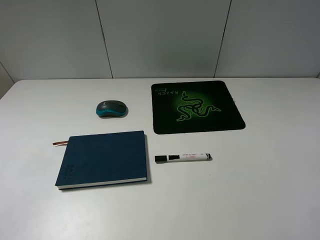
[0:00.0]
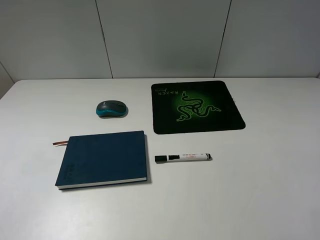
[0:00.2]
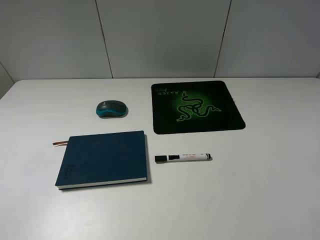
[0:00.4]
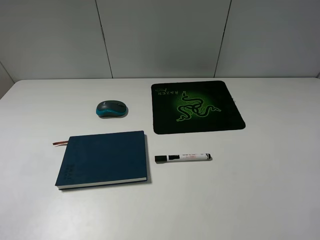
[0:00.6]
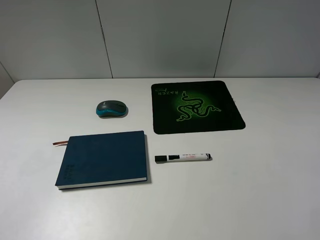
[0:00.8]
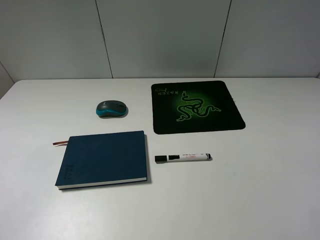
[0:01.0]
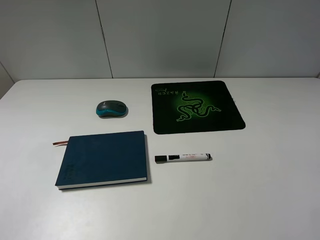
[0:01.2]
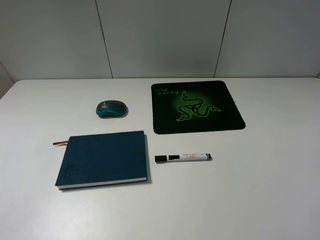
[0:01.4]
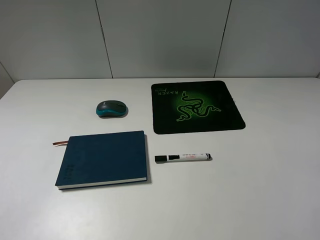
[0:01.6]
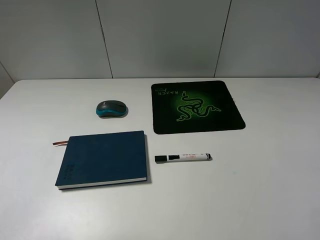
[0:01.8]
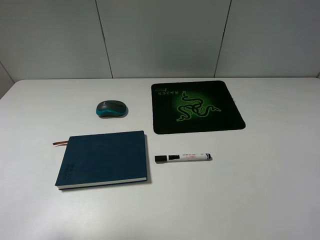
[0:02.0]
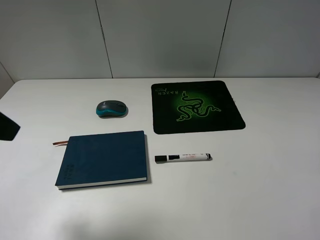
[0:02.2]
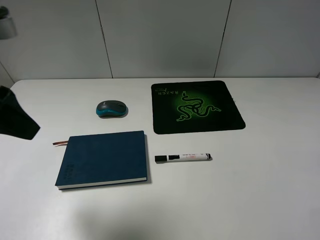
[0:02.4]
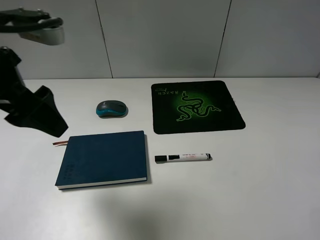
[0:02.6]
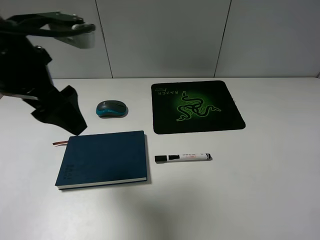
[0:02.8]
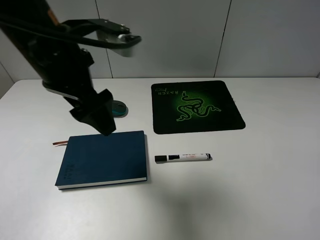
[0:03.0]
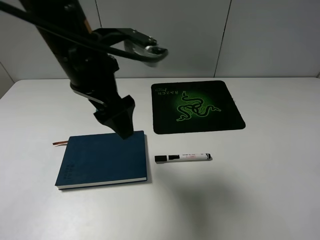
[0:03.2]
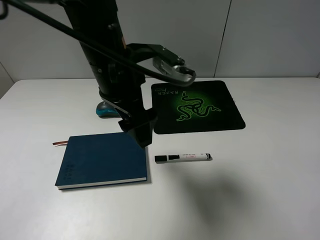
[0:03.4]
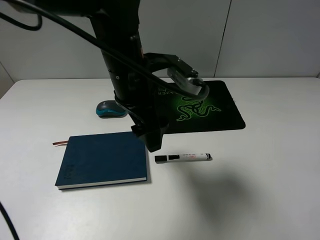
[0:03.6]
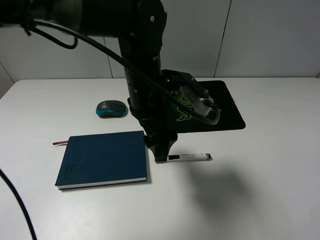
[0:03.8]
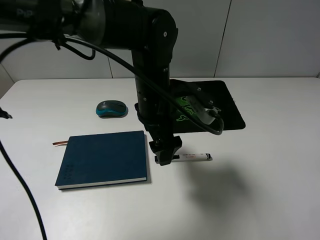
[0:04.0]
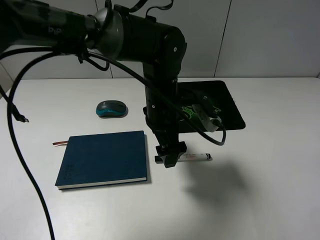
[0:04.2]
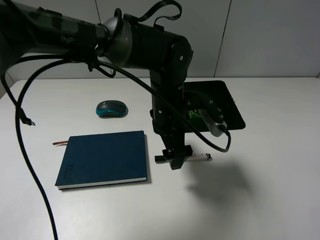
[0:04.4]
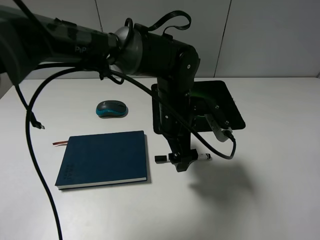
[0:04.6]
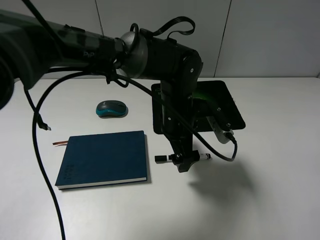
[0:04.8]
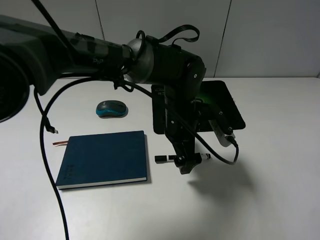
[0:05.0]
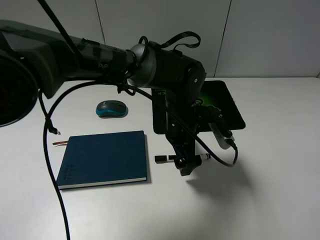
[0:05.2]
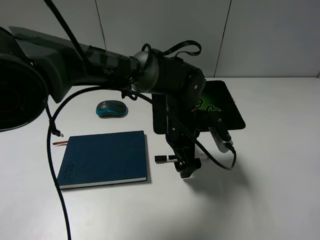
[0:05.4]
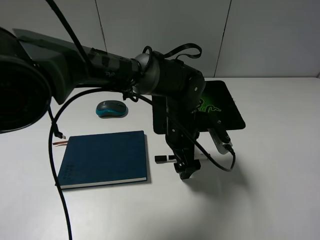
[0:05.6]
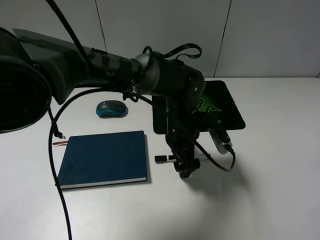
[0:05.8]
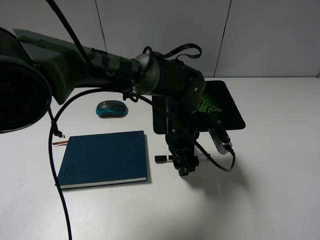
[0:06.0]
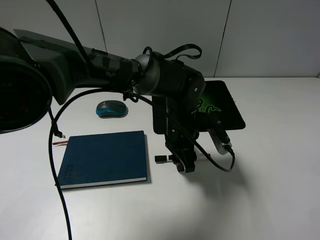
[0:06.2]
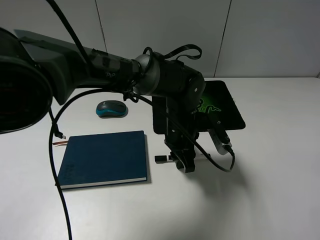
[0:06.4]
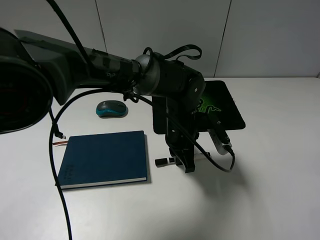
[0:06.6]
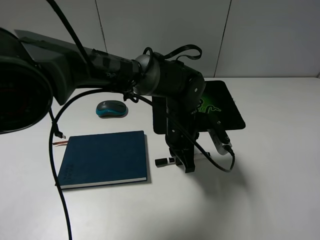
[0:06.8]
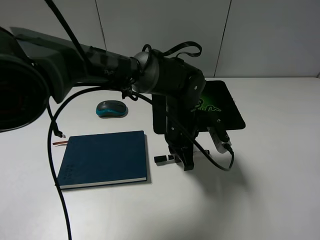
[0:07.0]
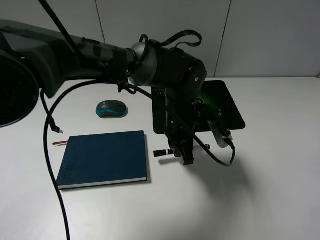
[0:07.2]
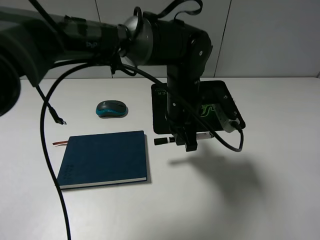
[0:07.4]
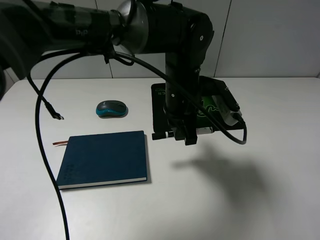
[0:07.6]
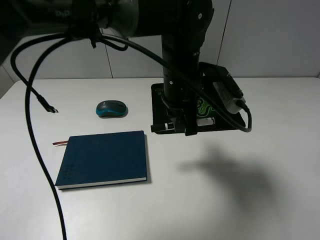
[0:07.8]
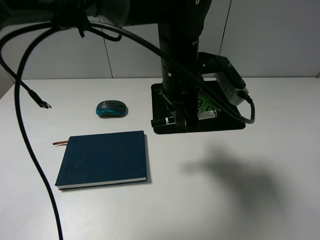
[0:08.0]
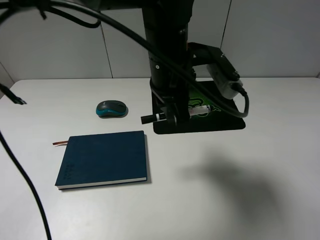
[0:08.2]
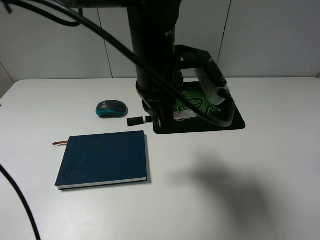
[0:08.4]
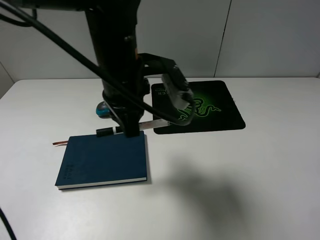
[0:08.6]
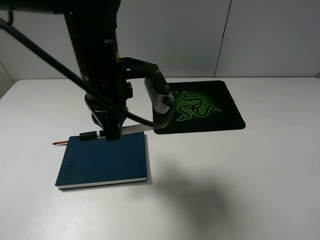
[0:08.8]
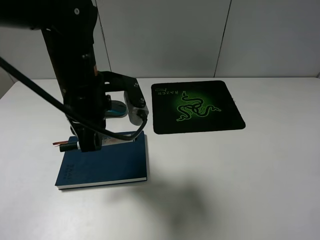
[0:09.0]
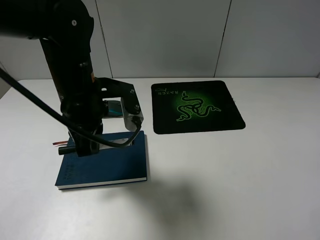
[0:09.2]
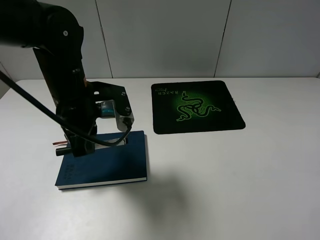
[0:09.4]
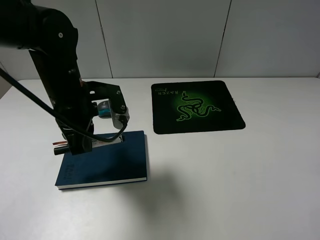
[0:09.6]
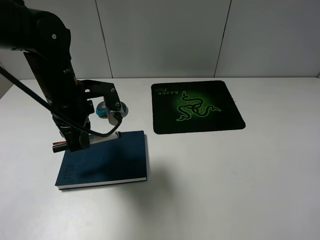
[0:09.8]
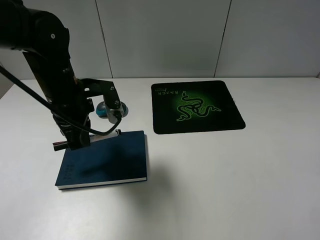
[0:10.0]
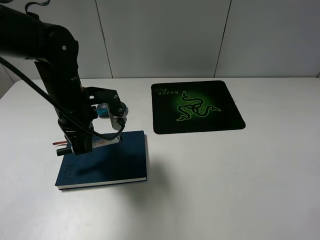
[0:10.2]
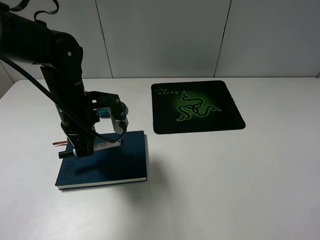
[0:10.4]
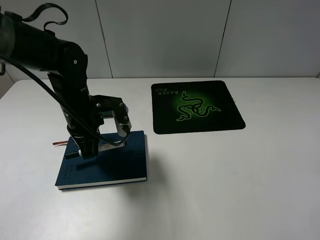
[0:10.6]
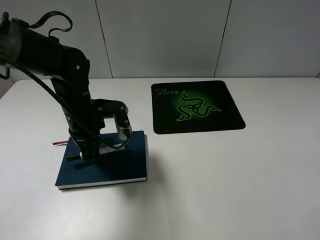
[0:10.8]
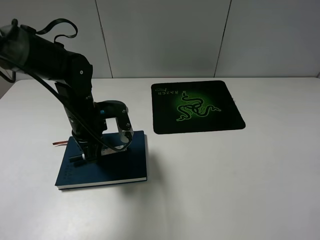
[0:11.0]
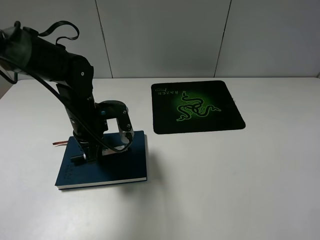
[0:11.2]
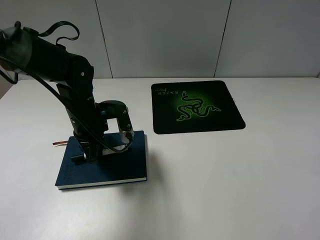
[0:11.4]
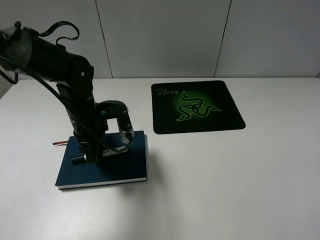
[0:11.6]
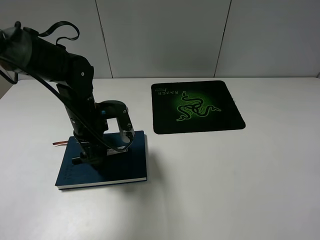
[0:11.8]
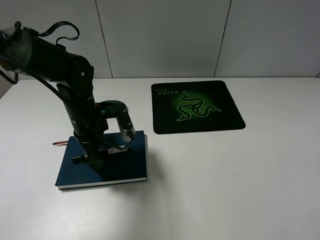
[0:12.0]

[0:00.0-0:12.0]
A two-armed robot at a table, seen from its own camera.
Step, 0:00.0 to 0:06.6: Grasp the marker with the left gripper.
0:01.6 to 0:03.0: The left gripper moves forward and to the right, about 25 cm.
0:03.0 to 0:04.4: The left gripper goes approximately 20 cm to the right and downward.
0:04.4 to 0:06.0: The left gripper goes some 5 cm downward.
0:06.0 to 0:07.6: The left gripper travels upward by some 10 cm, and closes up.
0:07.6 to 0:09.0: The left gripper goes about 15 cm to the left.
0:09.0 to 0:10.4: The left gripper moves downward, approximately 5 cm.
0:10.4 to 0:12.0: The left gripper opens its fingers.

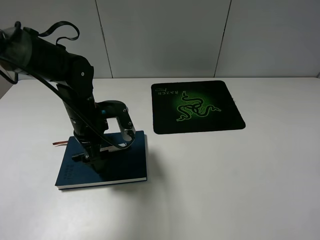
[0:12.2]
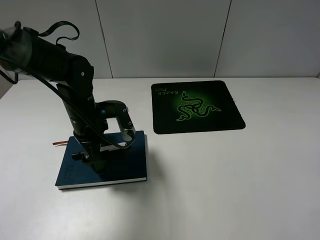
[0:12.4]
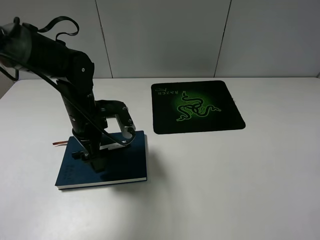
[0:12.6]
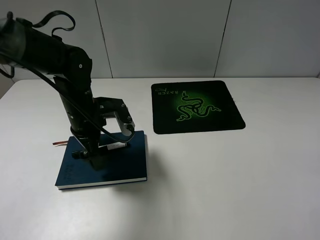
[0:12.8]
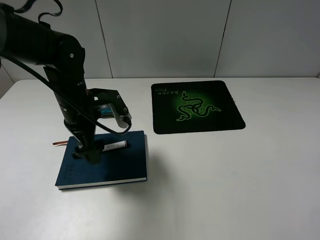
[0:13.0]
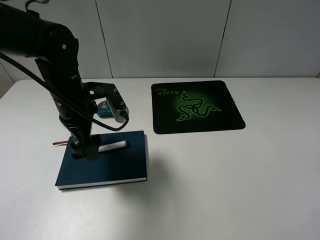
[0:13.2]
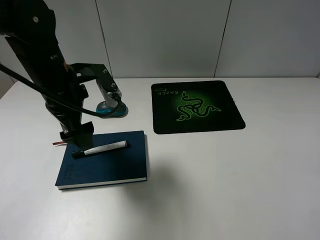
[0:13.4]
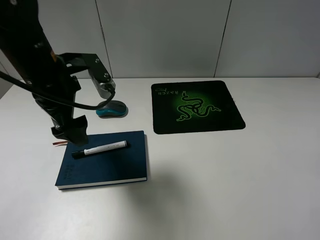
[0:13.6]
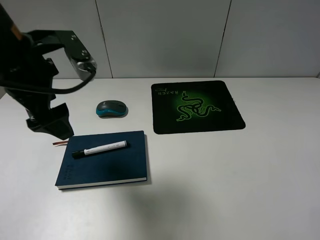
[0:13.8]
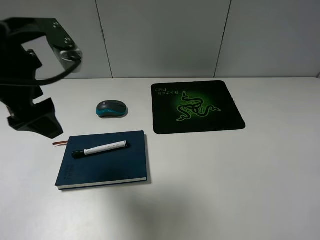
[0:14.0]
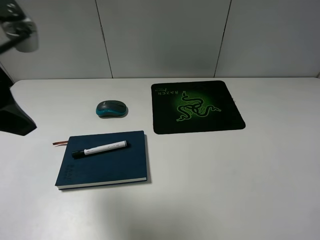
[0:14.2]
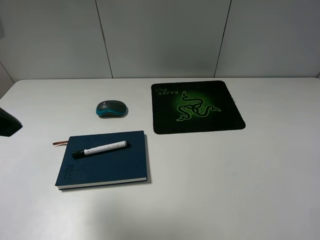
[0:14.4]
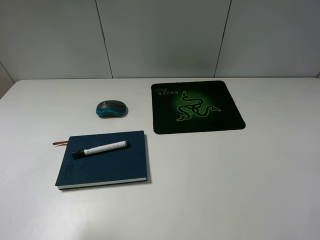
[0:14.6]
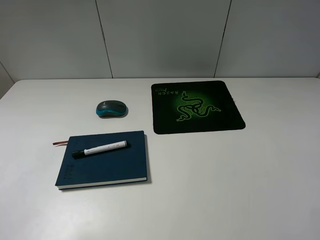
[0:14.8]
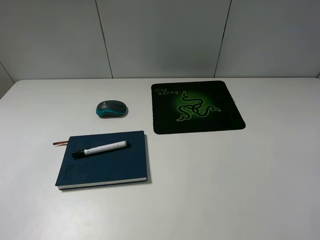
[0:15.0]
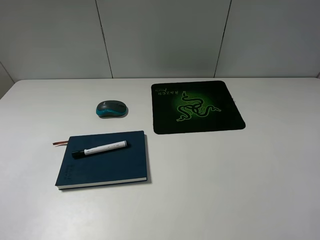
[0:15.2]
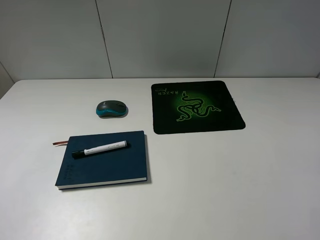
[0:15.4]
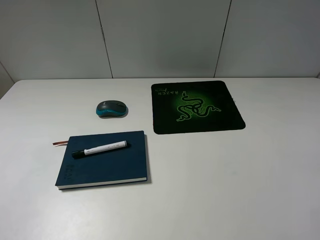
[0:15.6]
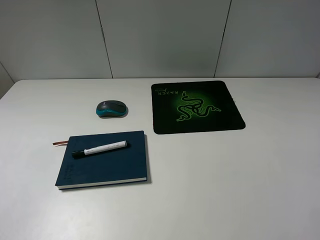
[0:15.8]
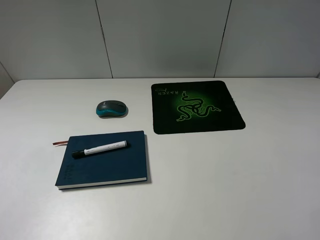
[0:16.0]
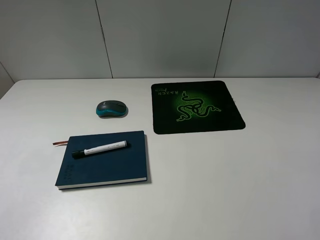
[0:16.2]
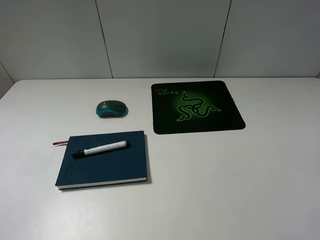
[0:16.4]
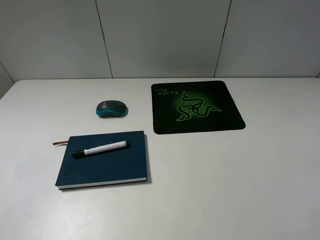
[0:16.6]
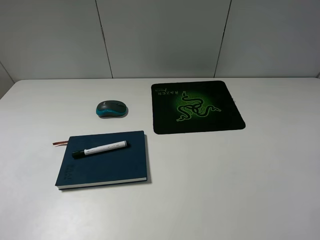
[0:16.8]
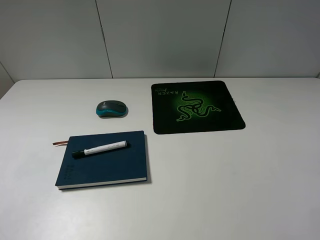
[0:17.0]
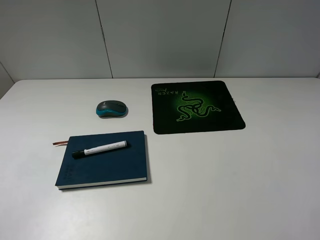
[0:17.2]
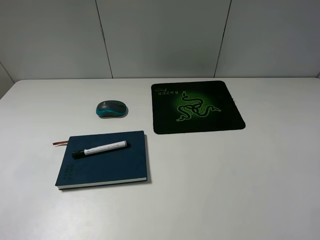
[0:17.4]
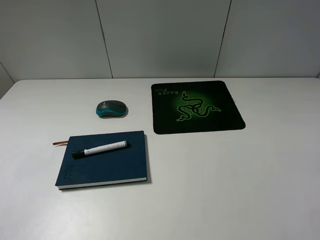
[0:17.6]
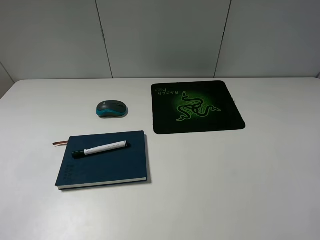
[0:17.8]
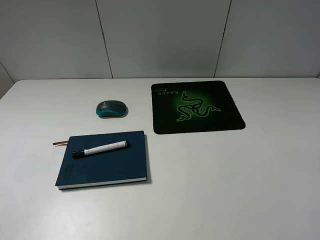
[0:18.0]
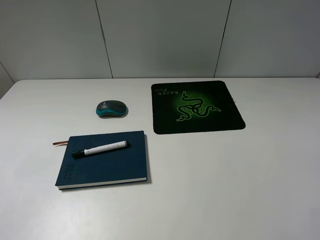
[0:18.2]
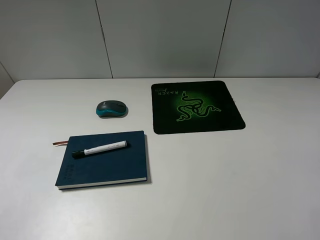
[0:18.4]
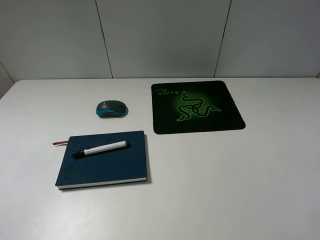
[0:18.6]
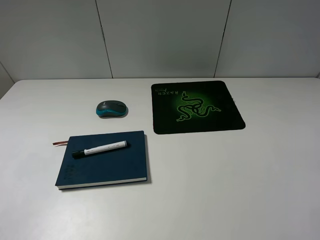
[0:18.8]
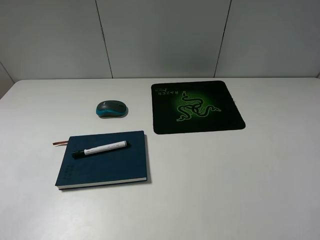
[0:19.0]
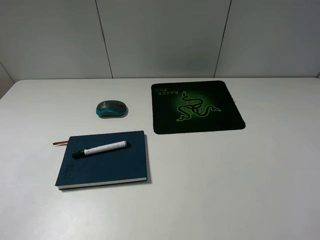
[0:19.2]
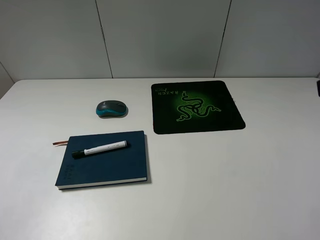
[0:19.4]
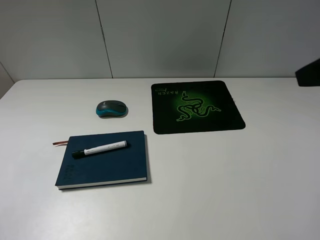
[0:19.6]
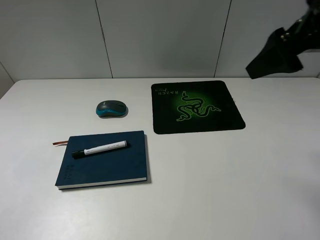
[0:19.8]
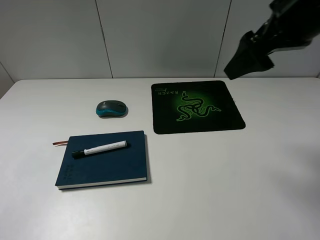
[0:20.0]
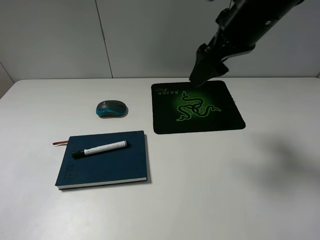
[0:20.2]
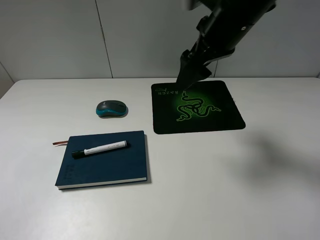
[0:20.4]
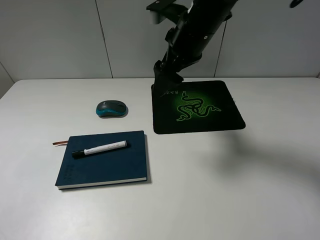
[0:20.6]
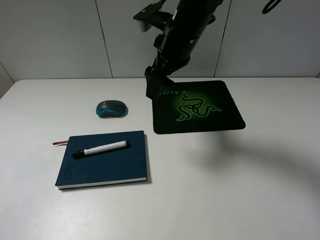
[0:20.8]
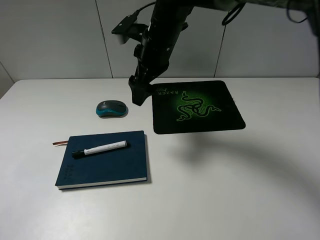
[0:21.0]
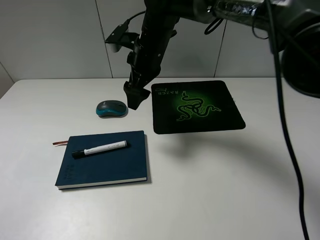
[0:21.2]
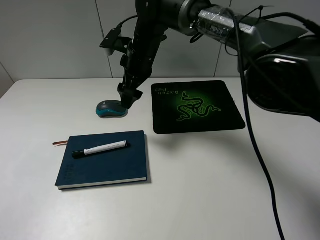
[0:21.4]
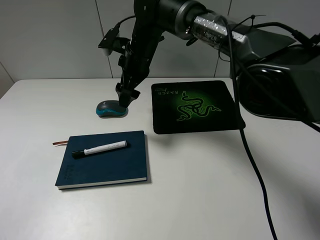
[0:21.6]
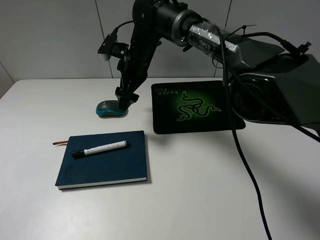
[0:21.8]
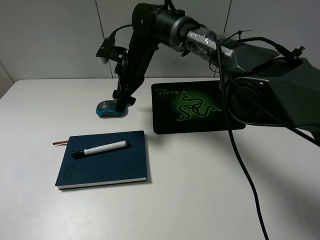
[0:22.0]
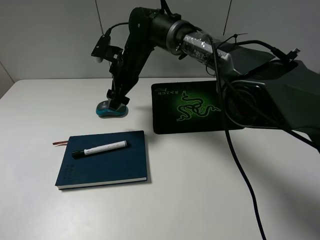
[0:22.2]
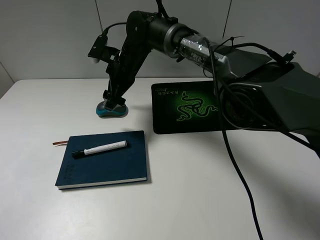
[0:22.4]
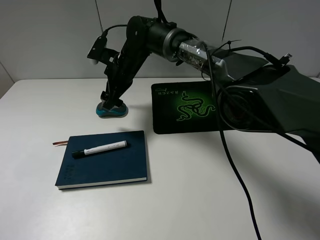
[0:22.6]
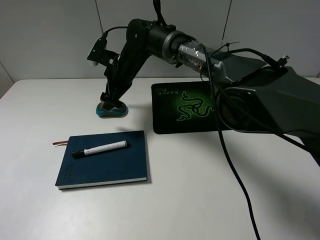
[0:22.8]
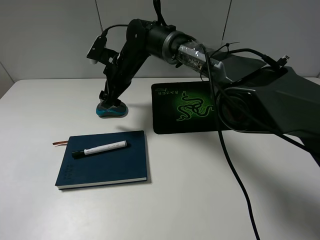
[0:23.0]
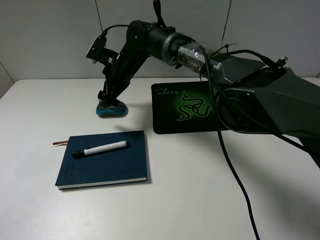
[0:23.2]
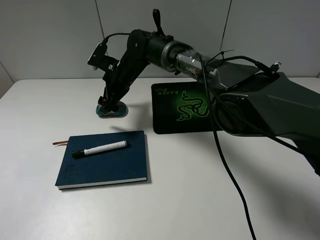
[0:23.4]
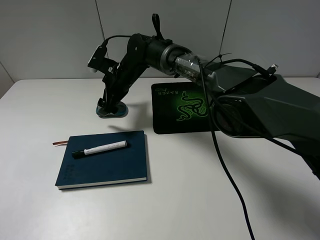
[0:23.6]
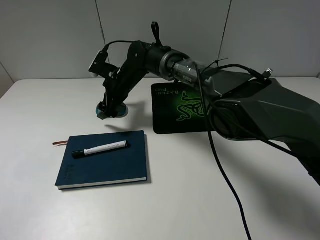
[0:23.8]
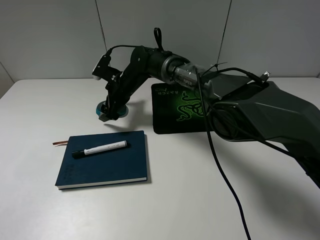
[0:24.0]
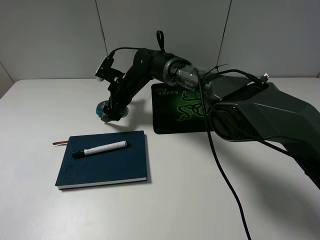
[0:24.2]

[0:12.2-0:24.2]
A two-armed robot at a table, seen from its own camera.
0:12.2 to 0:13.8: The left gripper heads upward, covering approximately 15 cm.
0:13.8 to 0:15.2: The left gripper travels backward and to the left by approximately 25 cm.
0:16.6 to 0:18.2: Both grippers stay about where they are.
0:18.2 to 0:19.8: The right gripper heads forward, covering some 25 cm.
0:19.8 to 0:21.2: The right gripper travels to the left, forward and downward by roughly 30 cm.
0:21.2 to 0:22.6: The right gripper shifts roughly 10 cm downward and to the left.
0:22.6 to 0:24.2: The right gripper shifts some 5 cm downward.
